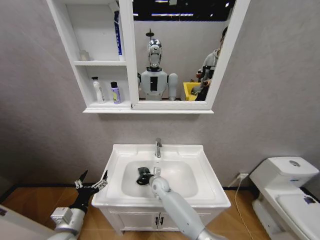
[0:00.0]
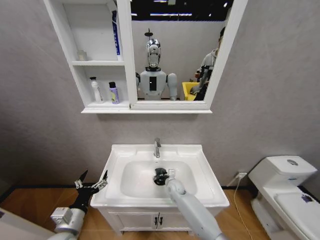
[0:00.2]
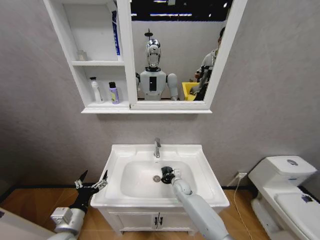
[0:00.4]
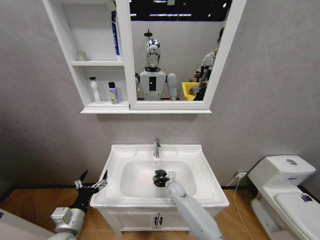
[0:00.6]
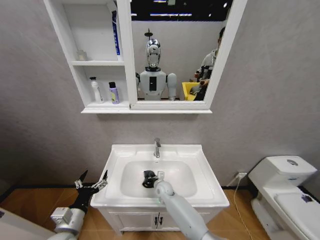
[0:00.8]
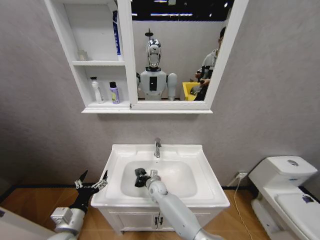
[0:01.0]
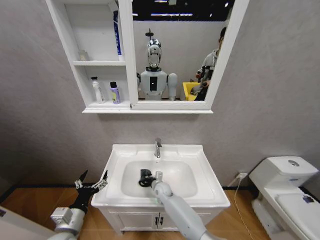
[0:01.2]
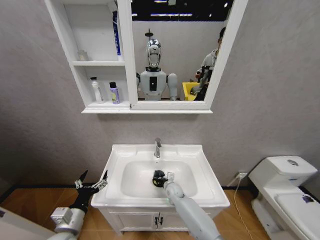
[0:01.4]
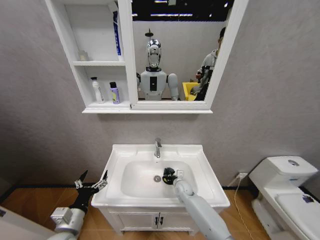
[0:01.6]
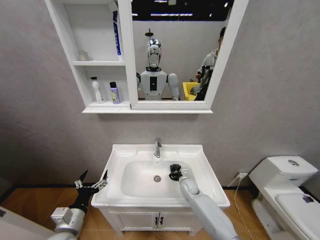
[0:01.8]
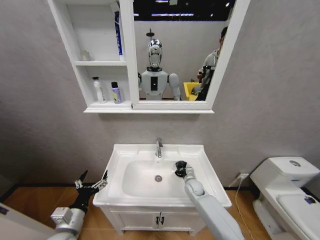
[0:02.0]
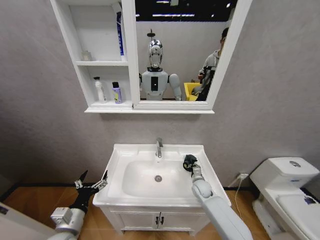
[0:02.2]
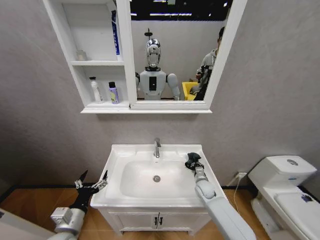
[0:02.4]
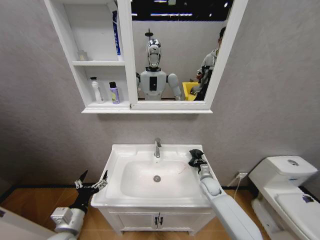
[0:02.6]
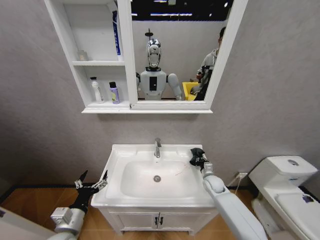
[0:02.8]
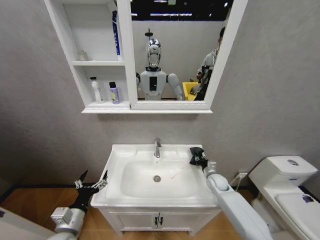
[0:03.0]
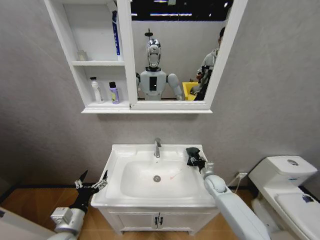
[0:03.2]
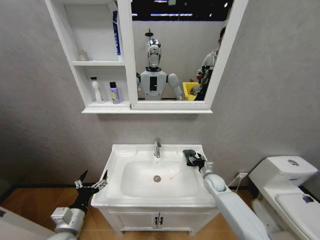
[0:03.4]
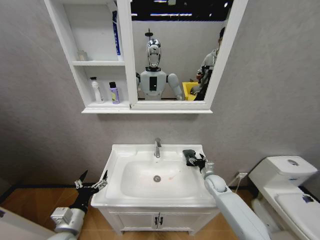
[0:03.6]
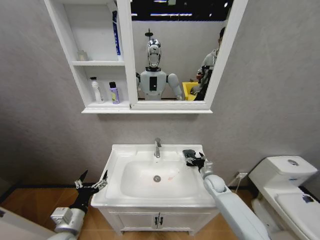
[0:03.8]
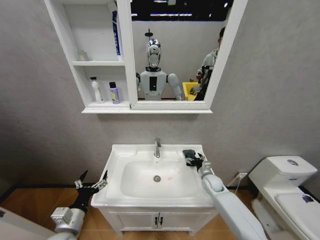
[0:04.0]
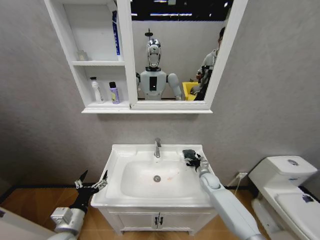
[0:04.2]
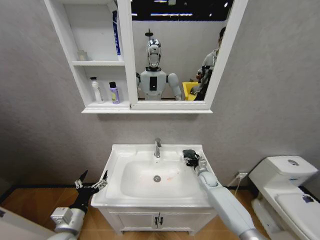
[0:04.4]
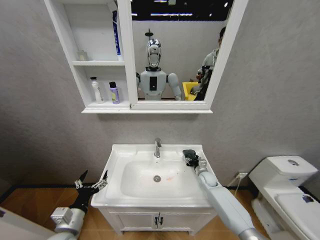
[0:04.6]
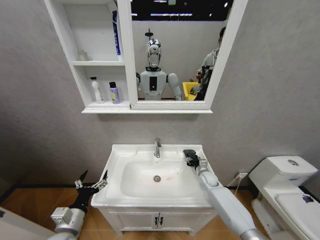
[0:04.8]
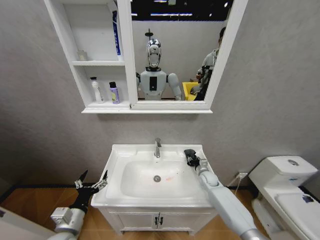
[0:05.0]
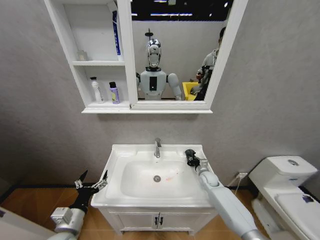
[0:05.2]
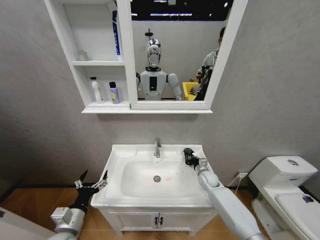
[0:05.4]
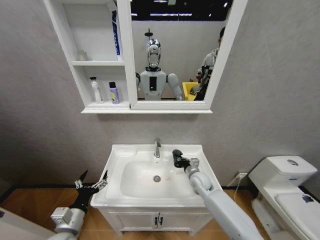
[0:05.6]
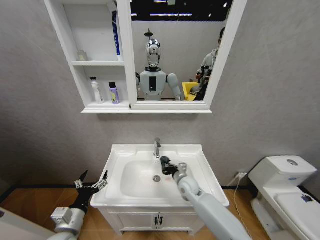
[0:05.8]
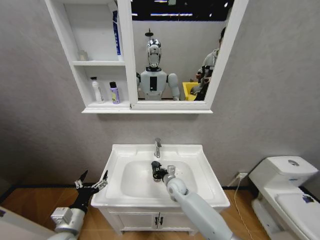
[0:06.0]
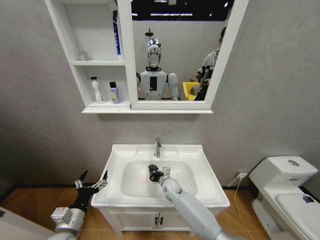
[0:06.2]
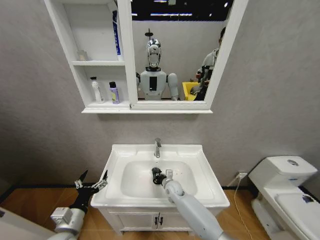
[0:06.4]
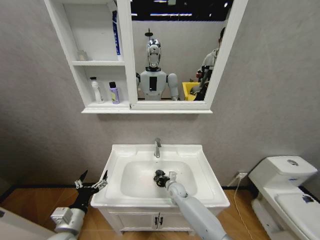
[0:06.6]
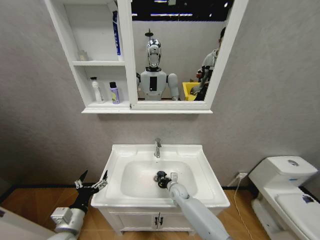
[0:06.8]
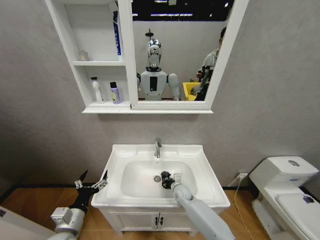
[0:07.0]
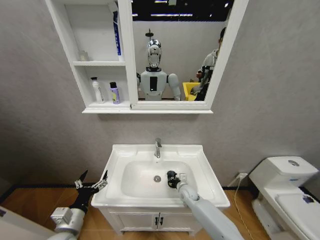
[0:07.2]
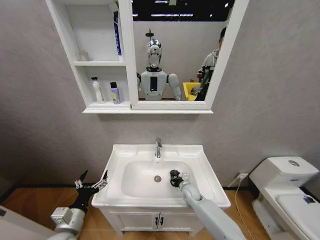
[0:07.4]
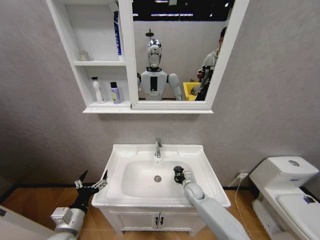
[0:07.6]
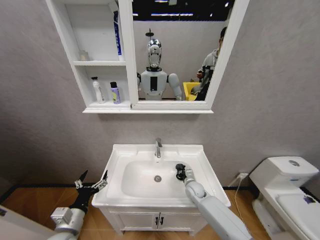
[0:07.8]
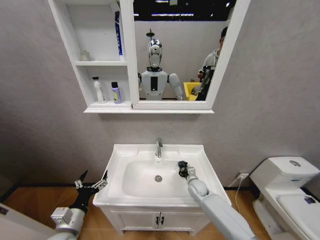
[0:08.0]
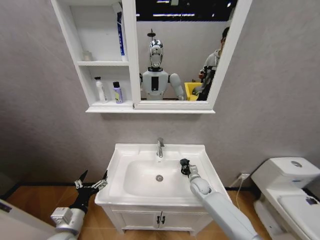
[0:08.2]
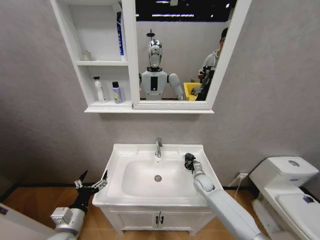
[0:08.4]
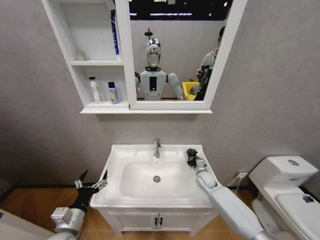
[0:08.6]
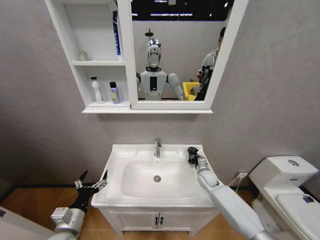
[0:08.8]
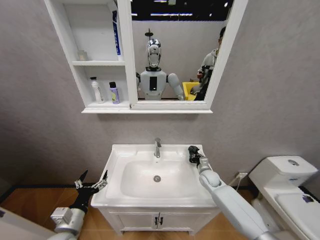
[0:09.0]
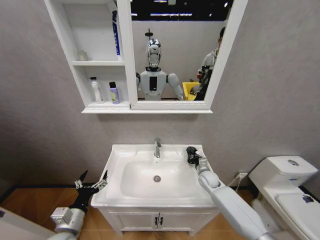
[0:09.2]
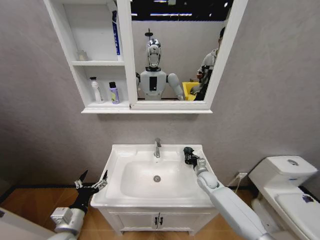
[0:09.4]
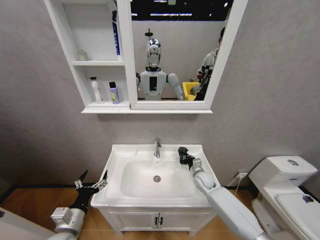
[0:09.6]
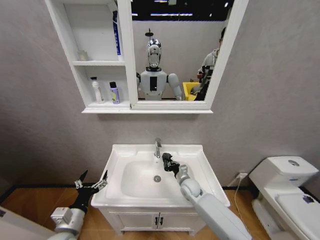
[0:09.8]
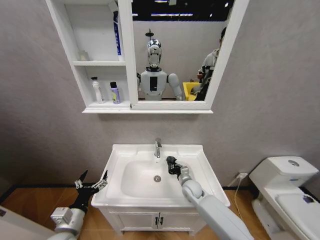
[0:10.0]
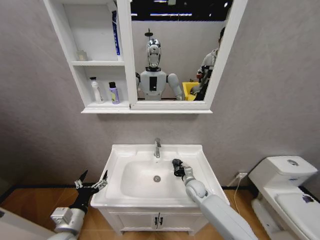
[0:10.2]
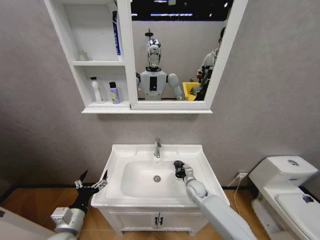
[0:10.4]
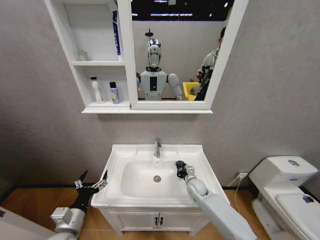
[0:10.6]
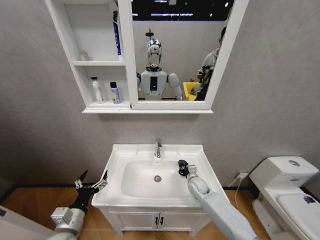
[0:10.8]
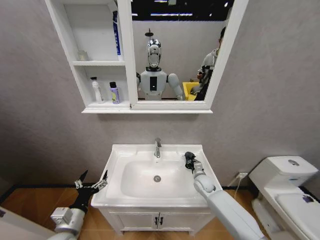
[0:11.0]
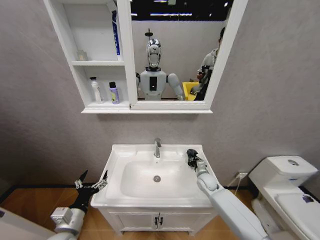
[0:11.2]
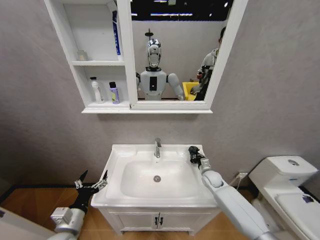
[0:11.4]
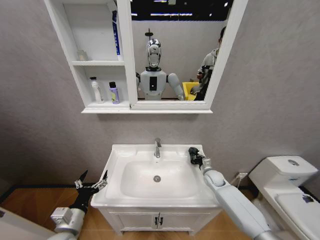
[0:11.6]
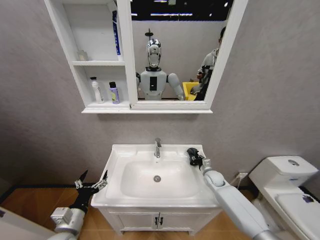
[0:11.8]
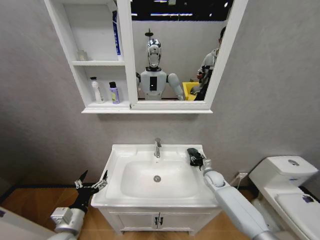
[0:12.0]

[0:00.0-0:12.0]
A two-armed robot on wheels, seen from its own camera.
Task of the whole recording: Move facial cleanser and shampoo from washbasin to cabinet, then wipe washbasin with towel.
0:00.0 to 0:01.6: The right gripper goes left and right, about 15 cm each way, reversing 2 times.
0:01.6 to 0:03.0: The right gripper moves to the right, approximately 20 cm.
0:03.0 to 0:04.4: The right gripper changes place by approximately 5 cm, and opens its fingers.
0:04.4 to 0:06.0: The right gripper heads to the left, covering roughly 20 cm, and closes its fingers.
0:06.0 to 0:07.6: The right gripper travels to the right and downward by approximately 10 cm.
0:07.6 to 0:09.0: The right gripper goes approximately 10 cm to the right and upward.
0:09.0 to 0:10.4: The right gripper moves to the left, roughly 10 cm.
0:10.4 to 0:12.0: The right gripper goes roughly 10 cm to the right, and opens up.

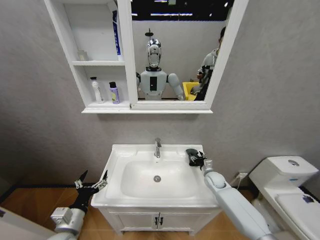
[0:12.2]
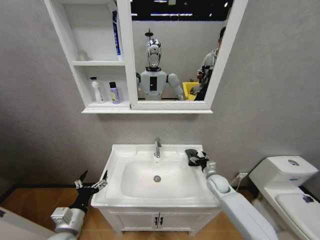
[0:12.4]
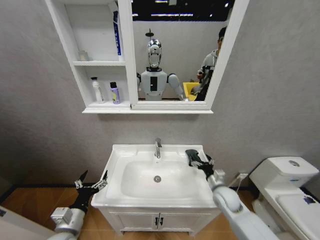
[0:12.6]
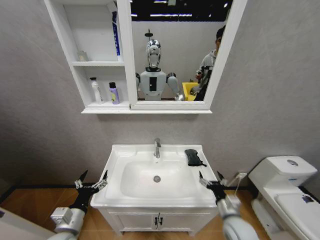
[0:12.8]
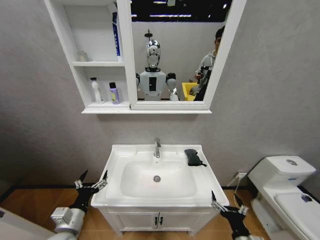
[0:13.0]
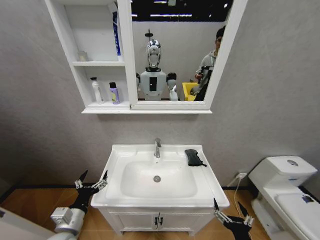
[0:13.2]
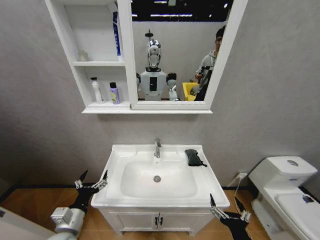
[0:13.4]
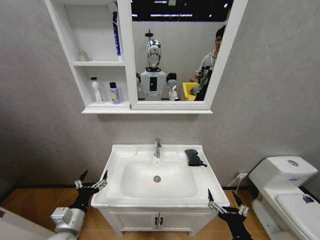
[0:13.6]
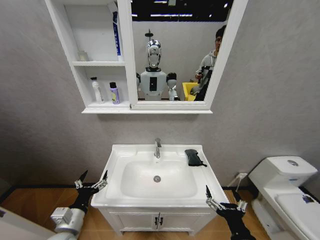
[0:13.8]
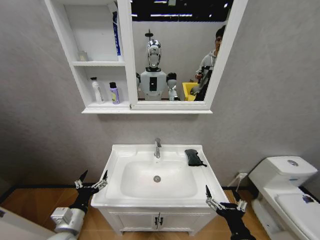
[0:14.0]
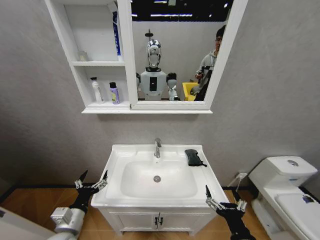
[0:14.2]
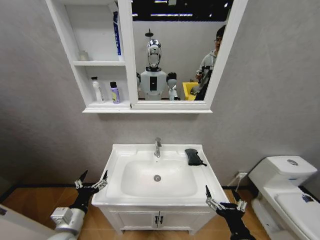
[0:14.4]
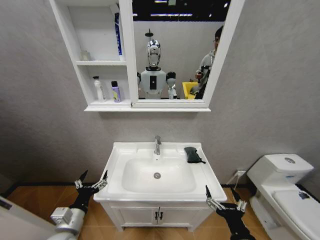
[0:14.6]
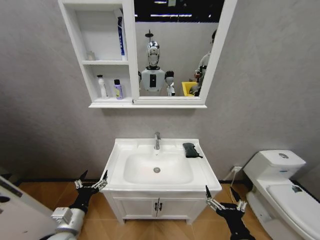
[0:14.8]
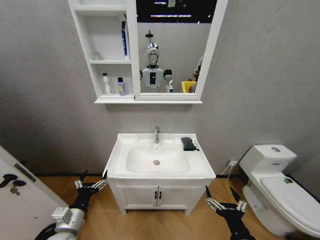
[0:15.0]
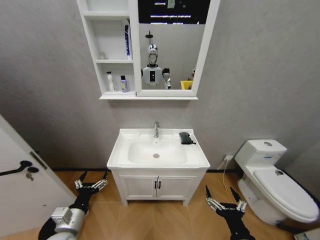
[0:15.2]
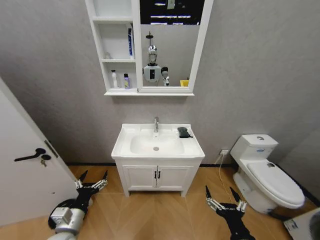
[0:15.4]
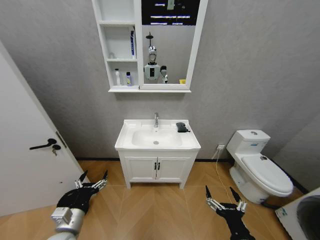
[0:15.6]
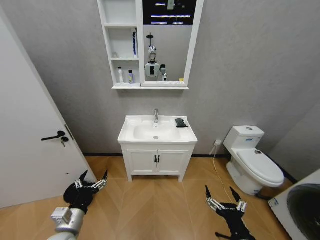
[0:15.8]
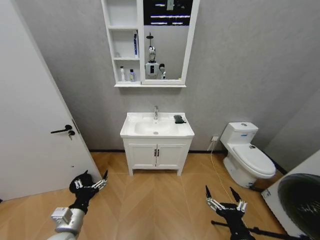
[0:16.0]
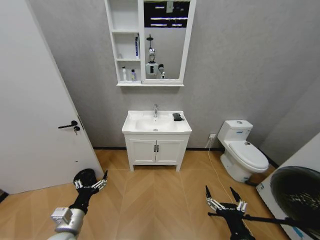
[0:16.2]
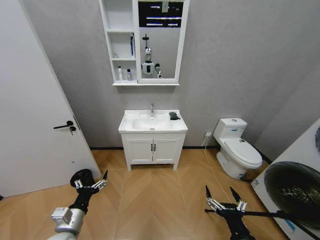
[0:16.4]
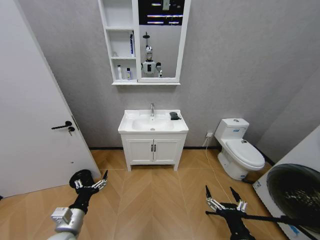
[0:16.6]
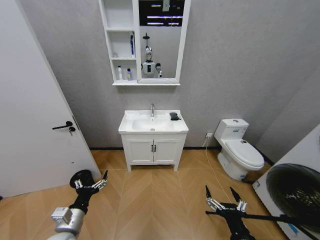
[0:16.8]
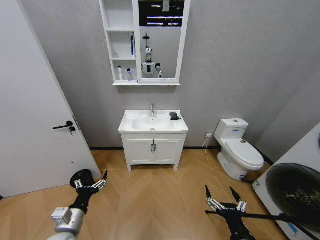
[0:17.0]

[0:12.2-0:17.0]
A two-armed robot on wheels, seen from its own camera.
Task of the whole recording: Move facial cleanser and shampoo from washbasin to cabinet, then wipe washbasin with towel.
0:12.2 to 0:13.8: The right gripper shifts roughly 35 cm backward, and opens its fingers.
